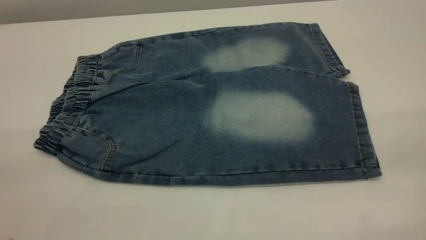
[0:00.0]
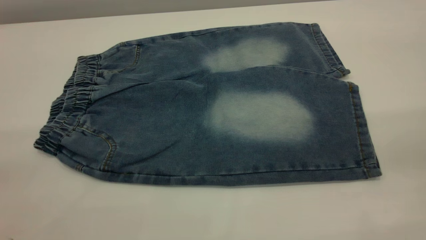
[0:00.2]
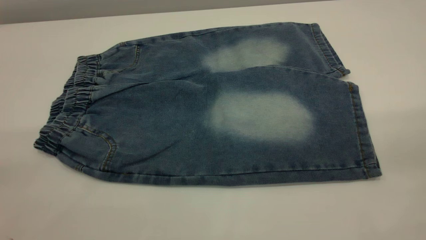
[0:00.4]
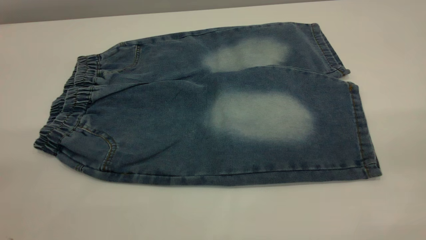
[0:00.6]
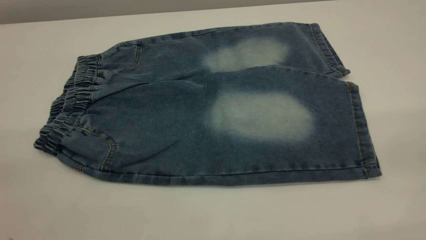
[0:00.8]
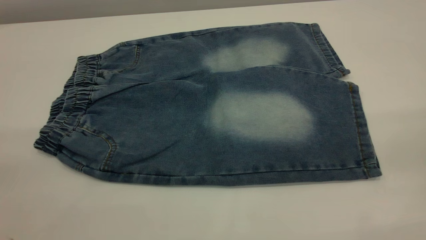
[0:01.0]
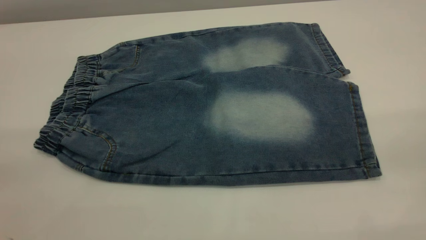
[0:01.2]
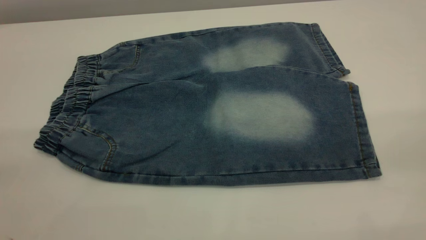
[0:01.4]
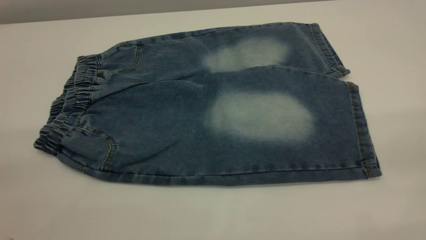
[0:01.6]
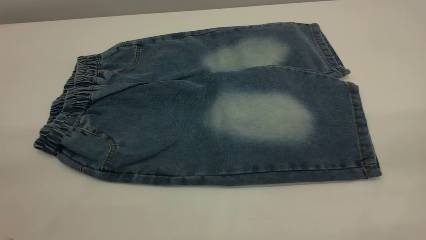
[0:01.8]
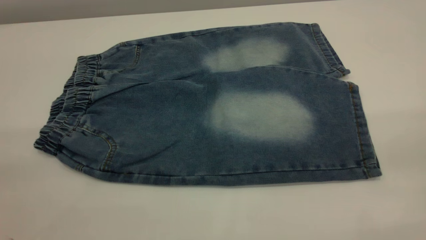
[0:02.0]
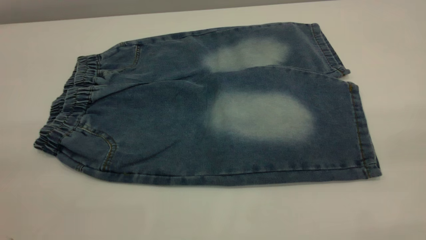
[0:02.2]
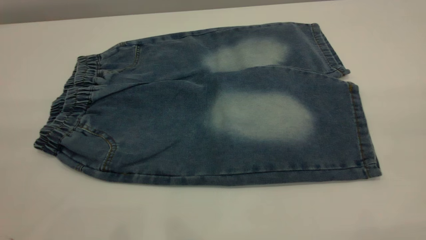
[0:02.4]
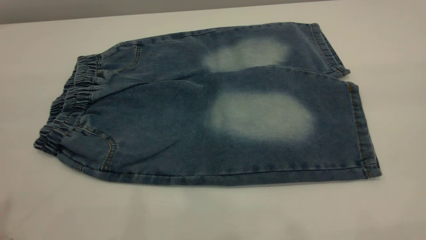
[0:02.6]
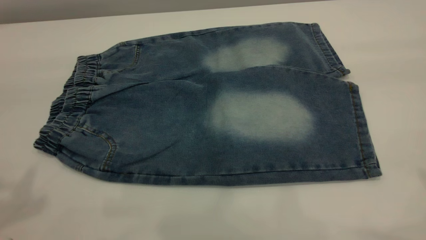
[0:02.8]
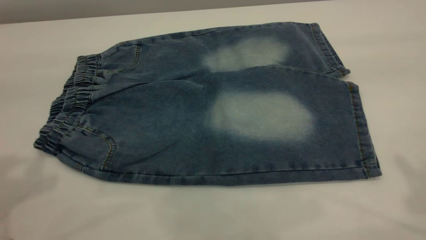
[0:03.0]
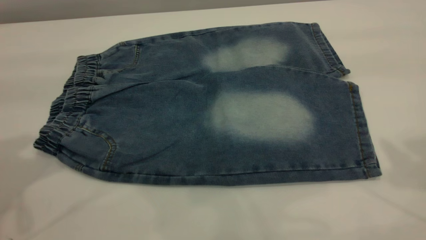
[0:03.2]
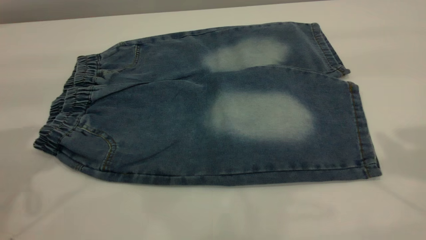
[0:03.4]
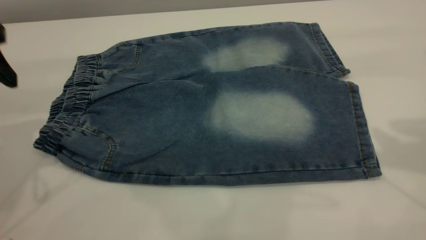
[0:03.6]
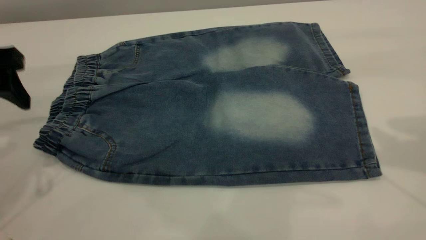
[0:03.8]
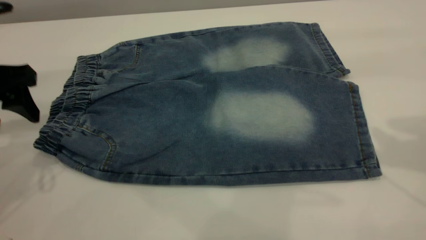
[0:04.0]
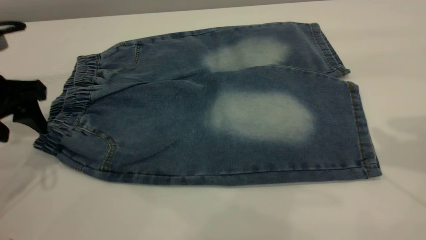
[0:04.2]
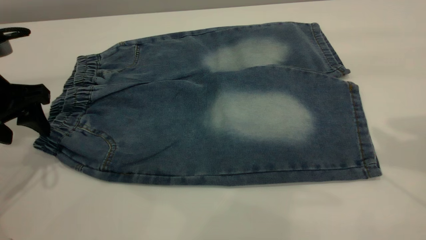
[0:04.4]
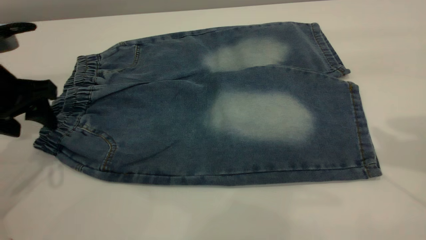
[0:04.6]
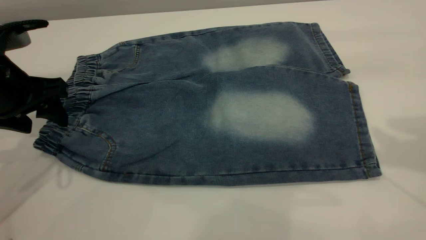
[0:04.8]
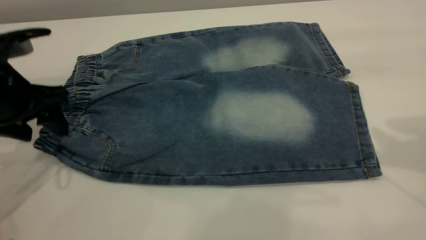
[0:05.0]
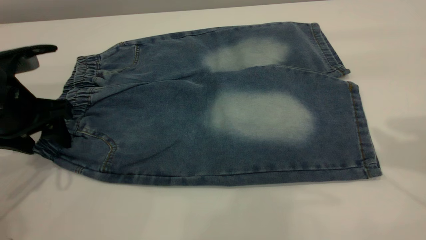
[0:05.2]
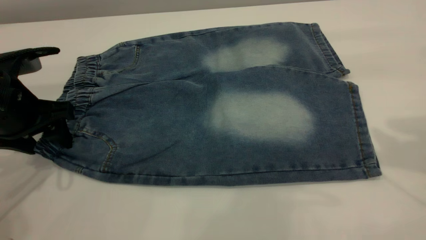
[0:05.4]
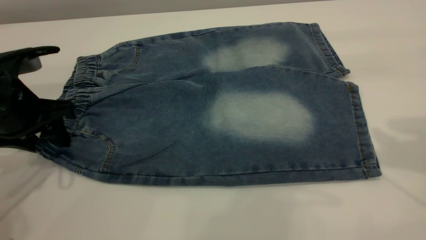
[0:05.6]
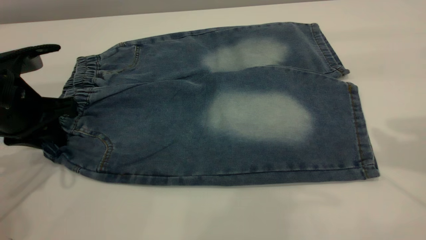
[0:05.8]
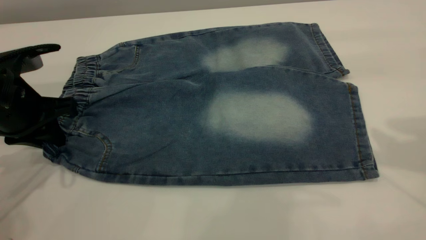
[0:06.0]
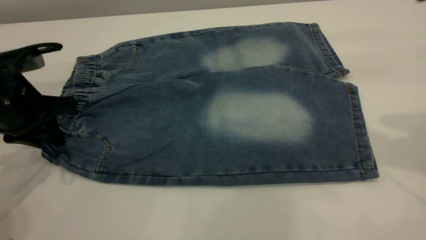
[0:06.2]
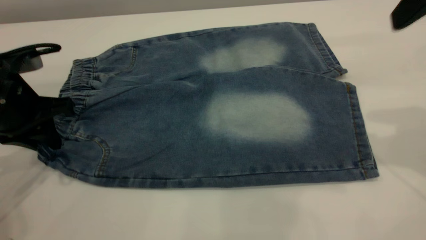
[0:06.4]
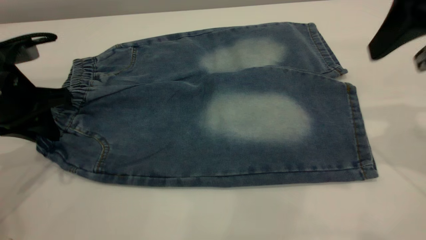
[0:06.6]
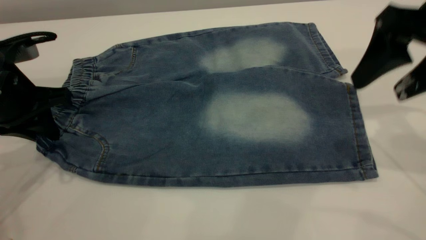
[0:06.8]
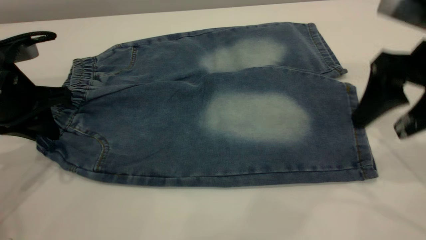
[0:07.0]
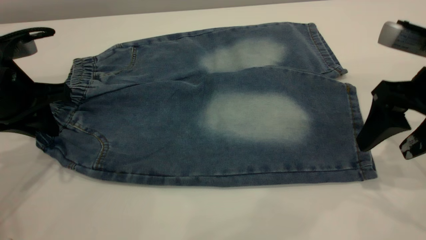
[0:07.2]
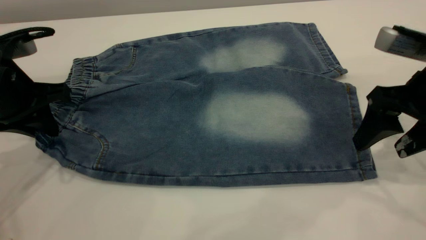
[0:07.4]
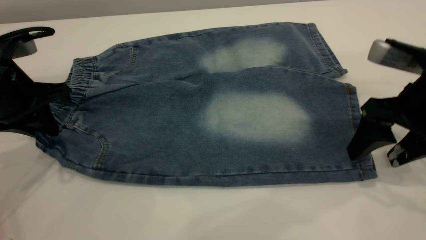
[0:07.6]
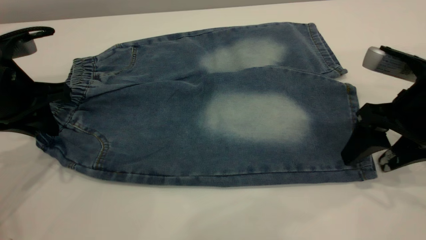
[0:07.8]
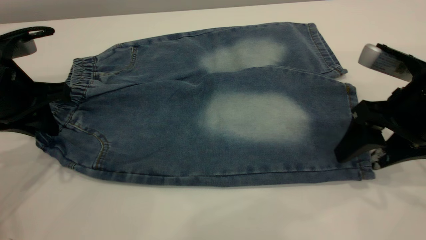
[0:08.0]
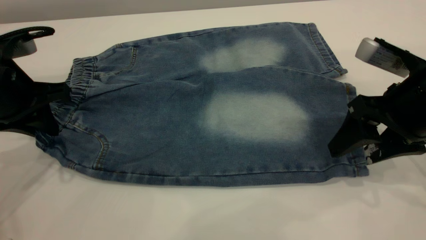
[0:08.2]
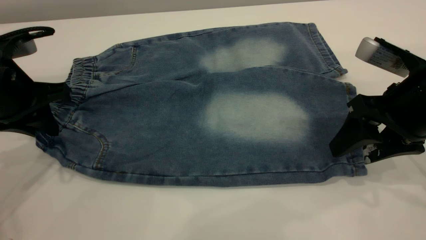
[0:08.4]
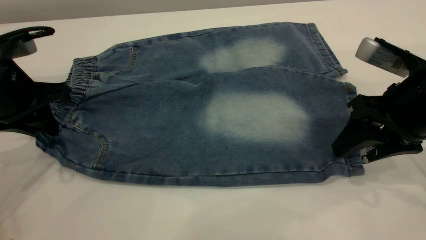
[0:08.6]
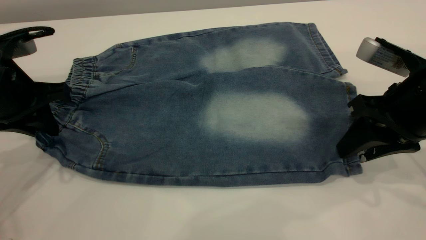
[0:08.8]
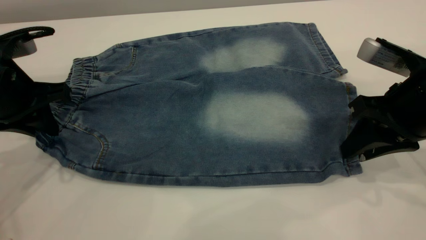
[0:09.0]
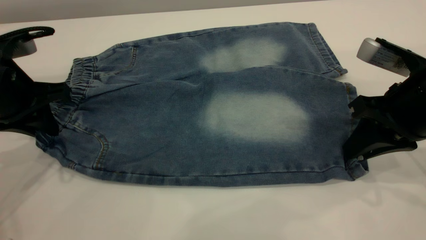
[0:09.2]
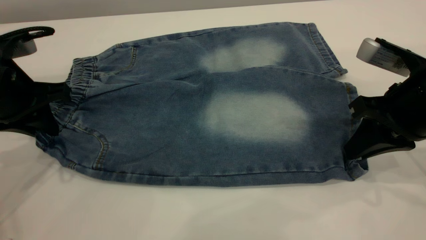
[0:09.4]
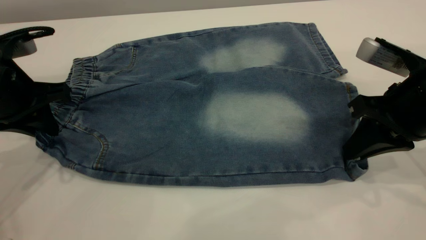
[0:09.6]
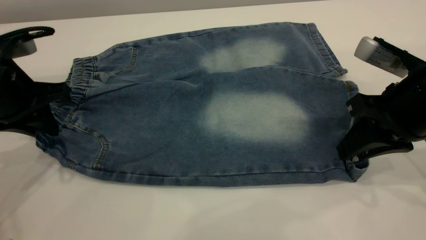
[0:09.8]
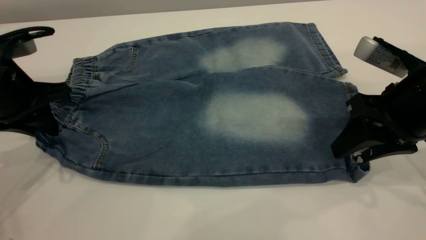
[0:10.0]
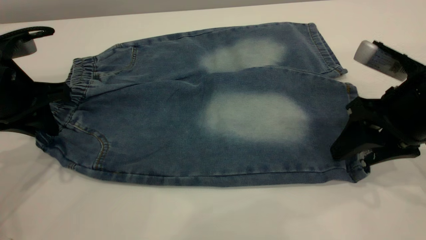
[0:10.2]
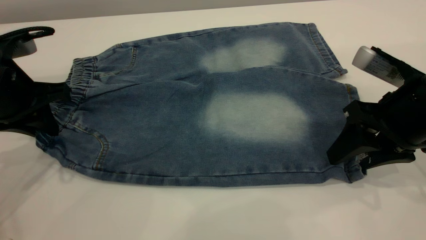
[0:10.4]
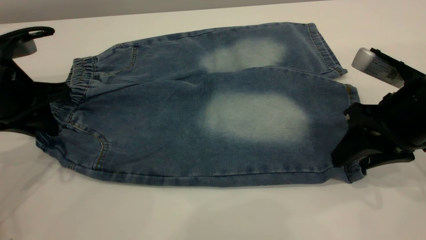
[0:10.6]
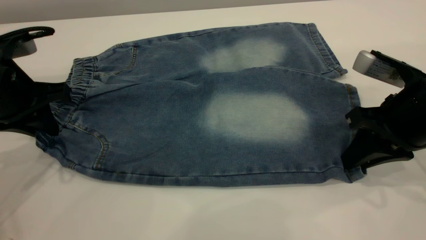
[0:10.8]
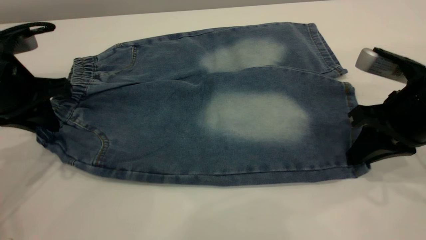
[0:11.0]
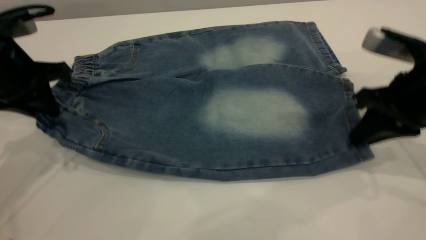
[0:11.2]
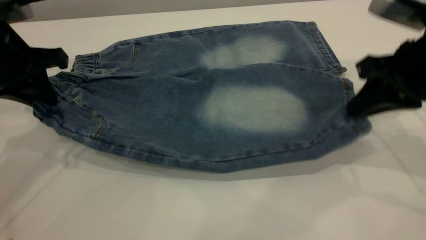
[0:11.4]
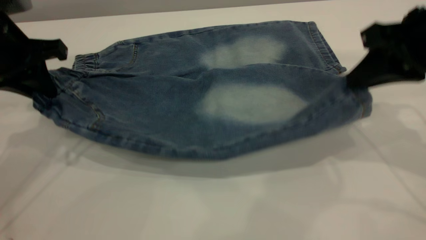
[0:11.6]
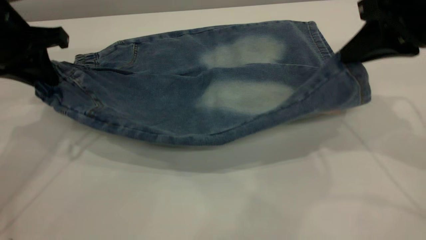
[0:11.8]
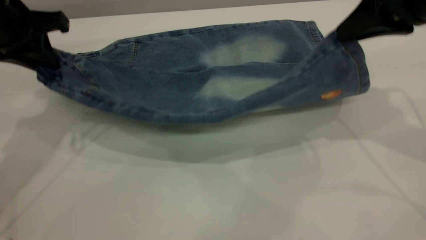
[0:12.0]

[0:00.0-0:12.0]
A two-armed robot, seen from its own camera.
0:00.0 to 0:01.6: Both grippers stay about where they are.
0:03.0 to 0:04.4: The left gripper moves downward and forward, some 20 cm.
0:04.4 to 0:06.0: The left gripper closes.
0:06.0 to 0:07.6: The right gripper goes about 20 cm downward.
0:07.6 to 0:09.0: The right gripper closes up.
0:09.0 to 0:10.4: The right gripper opens.
0:10.4 to 0:12.0: The grippers both shift upward and forward by some 10 cm. The right gripper closes.

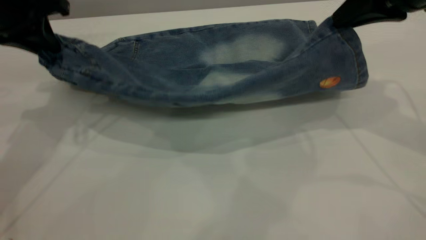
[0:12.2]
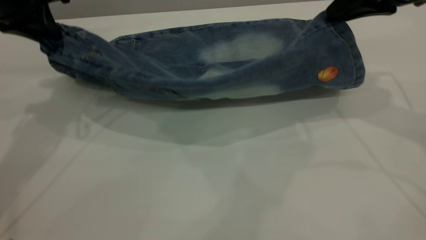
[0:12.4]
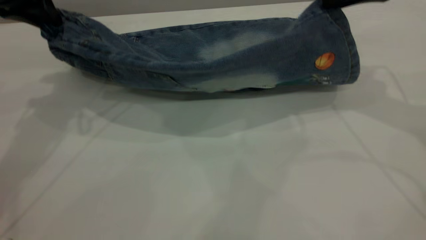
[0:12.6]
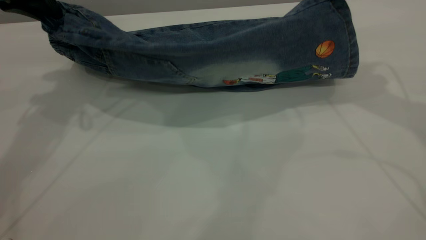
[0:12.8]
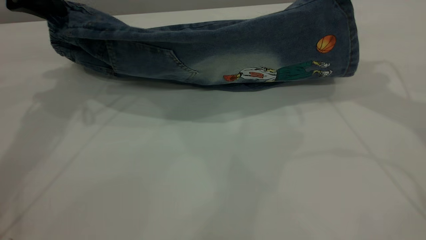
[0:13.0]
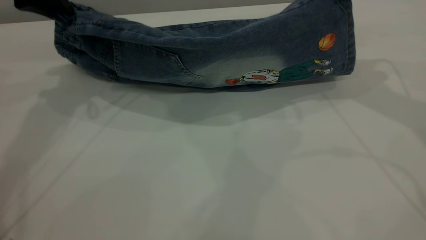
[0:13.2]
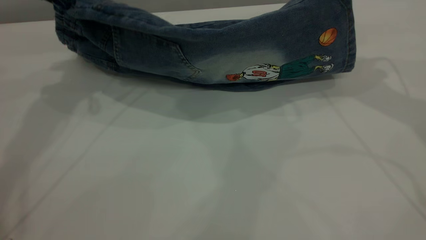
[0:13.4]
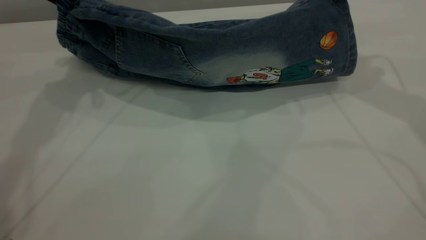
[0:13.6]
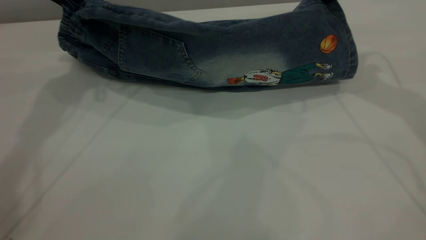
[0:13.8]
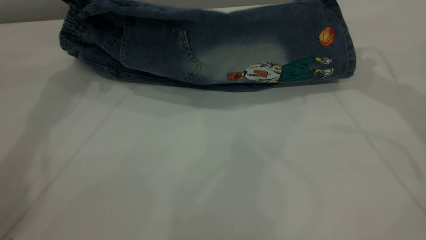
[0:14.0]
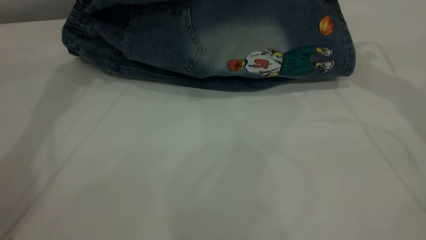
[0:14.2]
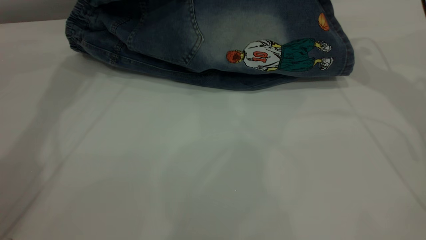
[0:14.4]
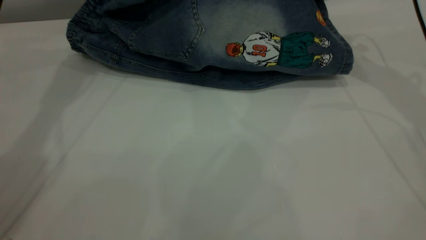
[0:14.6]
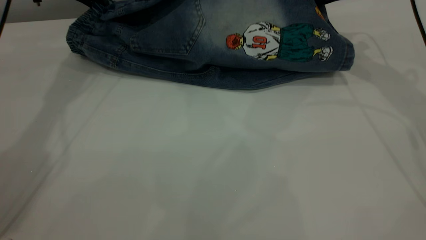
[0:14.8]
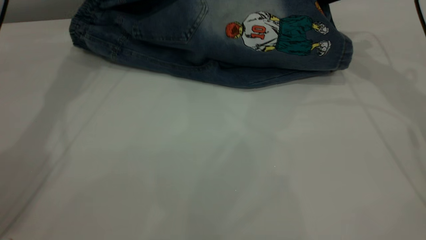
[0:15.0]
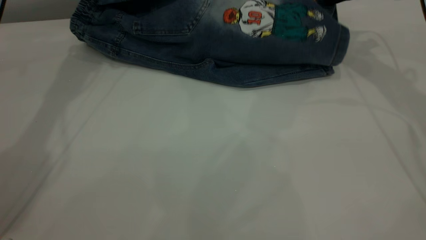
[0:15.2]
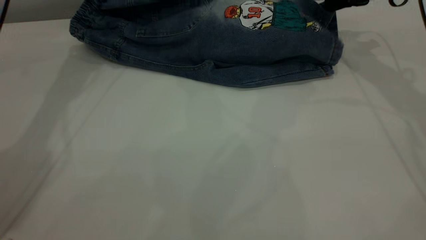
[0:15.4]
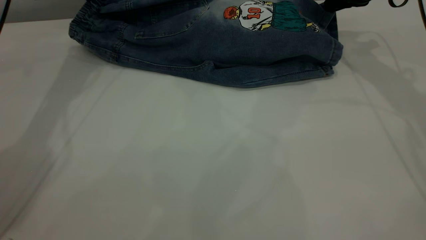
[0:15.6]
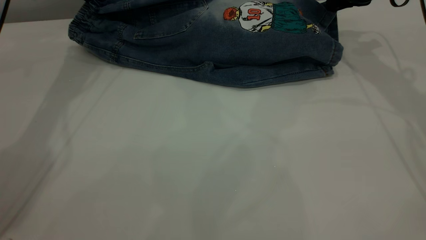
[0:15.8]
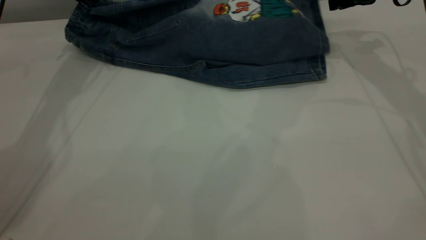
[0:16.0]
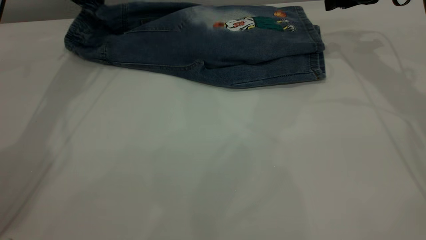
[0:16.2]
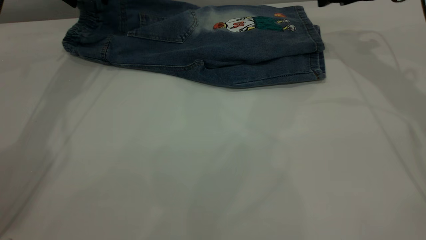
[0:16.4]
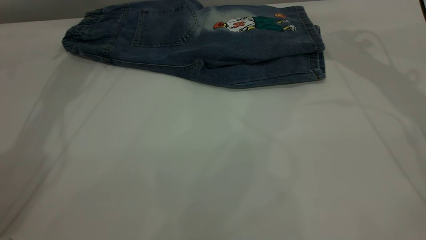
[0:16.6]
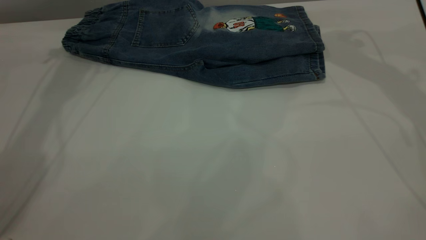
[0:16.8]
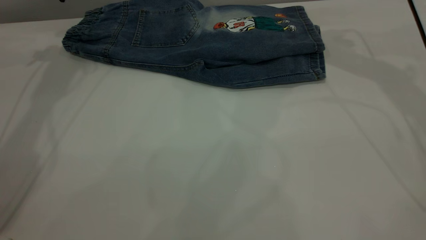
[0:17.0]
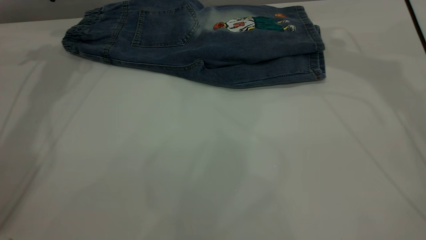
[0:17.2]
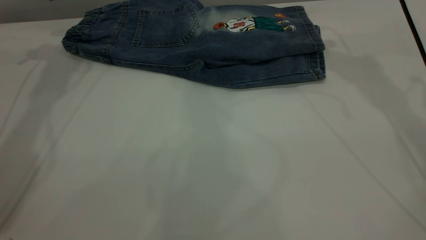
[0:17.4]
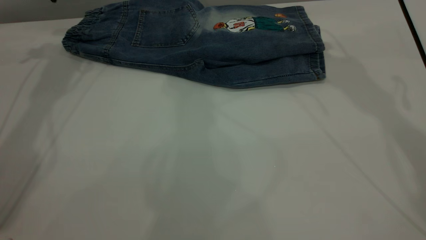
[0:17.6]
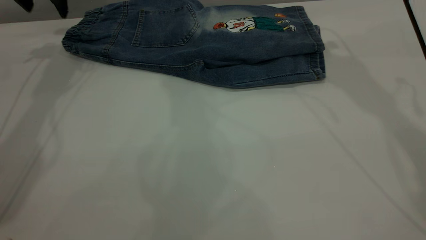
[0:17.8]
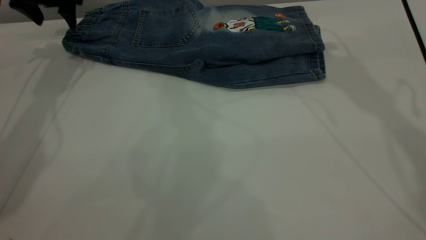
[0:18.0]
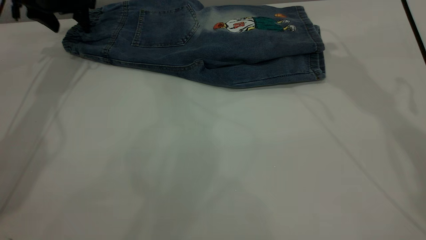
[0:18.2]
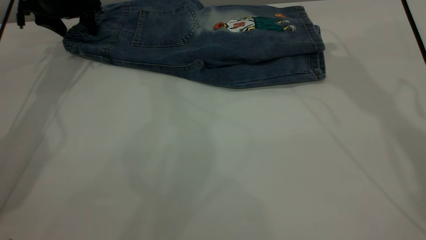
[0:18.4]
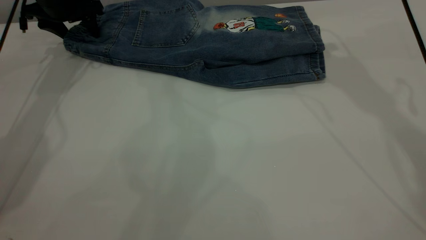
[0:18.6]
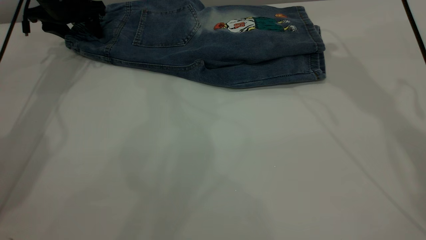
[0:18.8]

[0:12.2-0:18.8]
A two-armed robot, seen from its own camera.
Step, 0:12.2 to 0:16.8: Fold the bottom of the pants upward.
0:12.2 to 0:13.8: The grippers both shift forward by some 10 cm.
0:13.8 to 0:15.4: The left gripper shifts about 10 cm forward. Meanwhile the right gripper heads forward and downward, covering approximately 10 cm.
0:15.4 to 0:17.2: The right gripper travels upward and to the left by approximately 10 cm, and opens, while the left gripper goes about 5 cm to the left, and opens its fingers.
0:17.2 to 0:18.8: The left gripper moves downward, some 10 cm.
